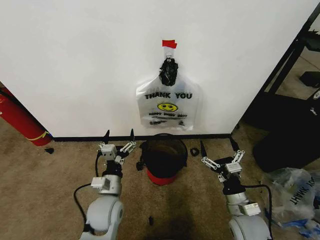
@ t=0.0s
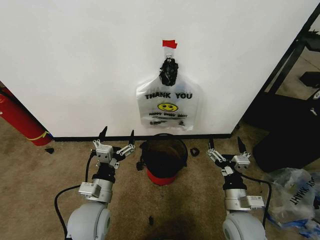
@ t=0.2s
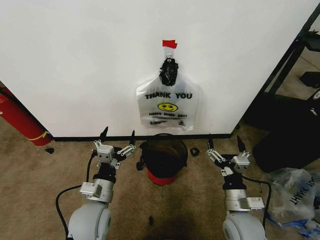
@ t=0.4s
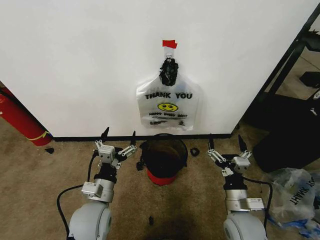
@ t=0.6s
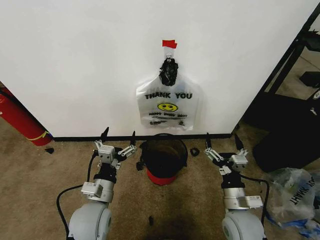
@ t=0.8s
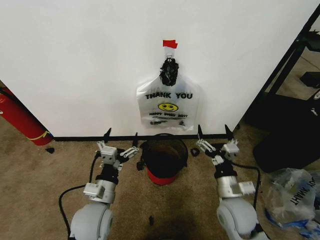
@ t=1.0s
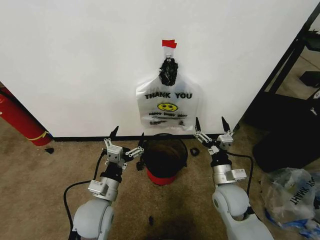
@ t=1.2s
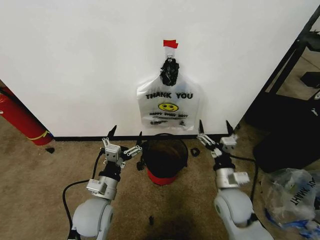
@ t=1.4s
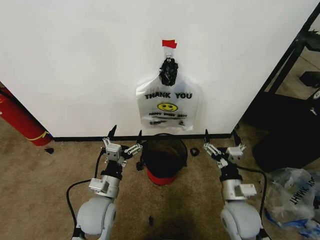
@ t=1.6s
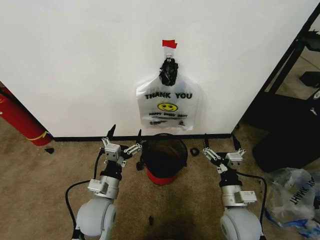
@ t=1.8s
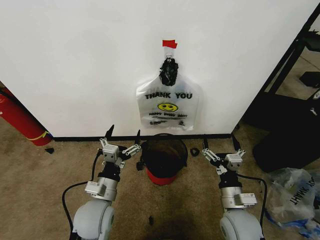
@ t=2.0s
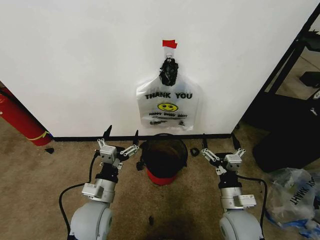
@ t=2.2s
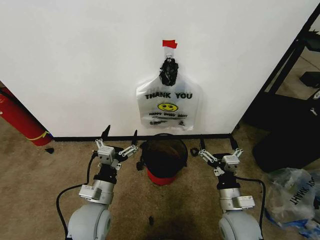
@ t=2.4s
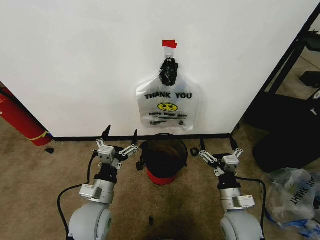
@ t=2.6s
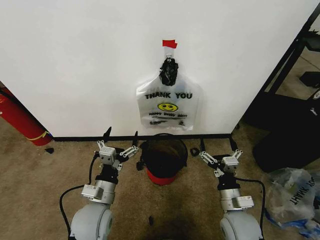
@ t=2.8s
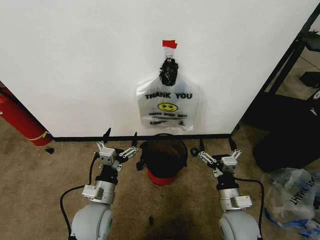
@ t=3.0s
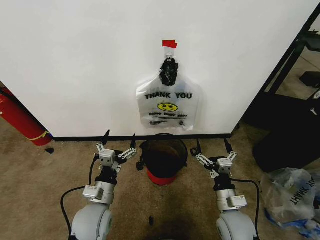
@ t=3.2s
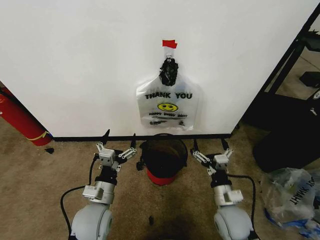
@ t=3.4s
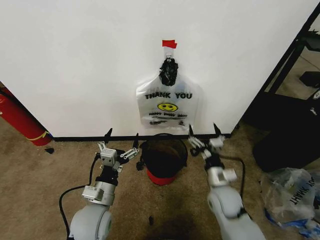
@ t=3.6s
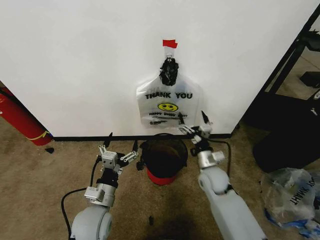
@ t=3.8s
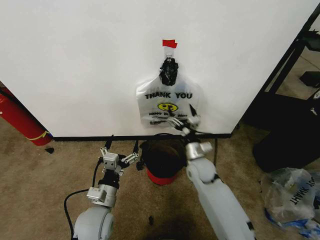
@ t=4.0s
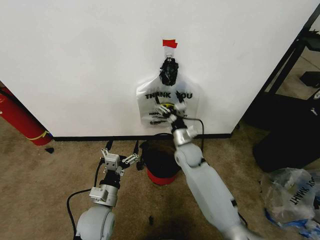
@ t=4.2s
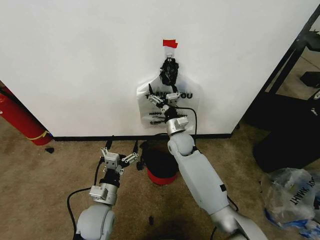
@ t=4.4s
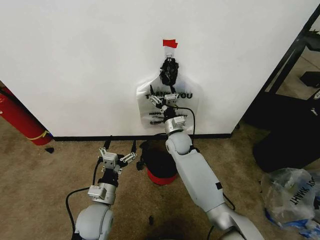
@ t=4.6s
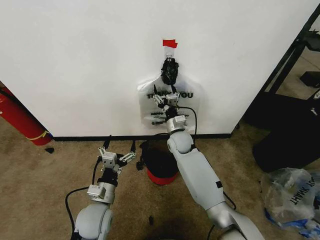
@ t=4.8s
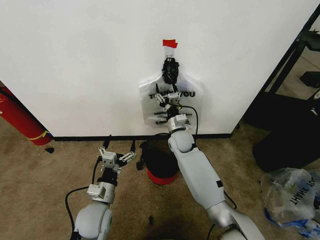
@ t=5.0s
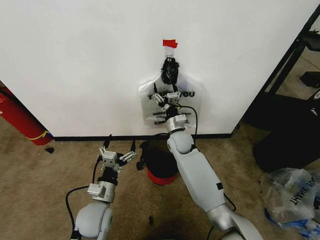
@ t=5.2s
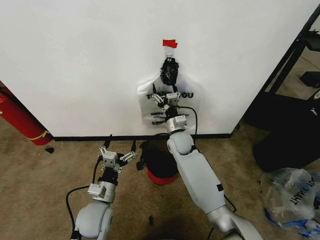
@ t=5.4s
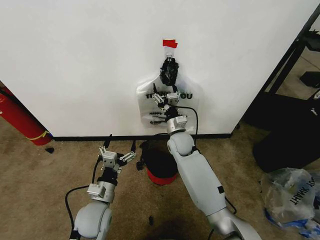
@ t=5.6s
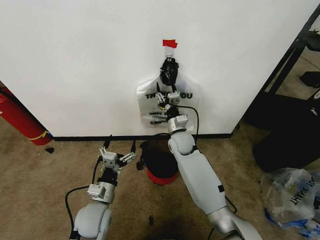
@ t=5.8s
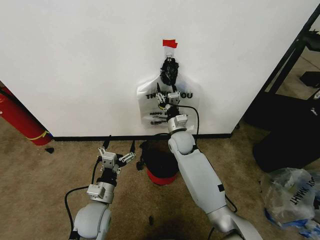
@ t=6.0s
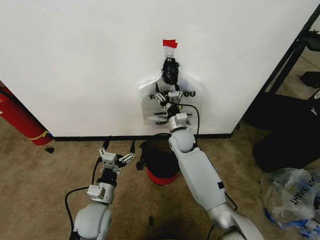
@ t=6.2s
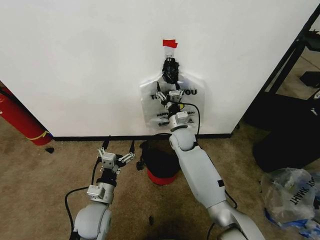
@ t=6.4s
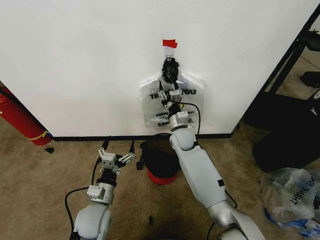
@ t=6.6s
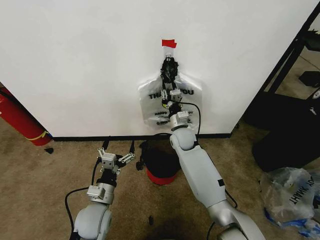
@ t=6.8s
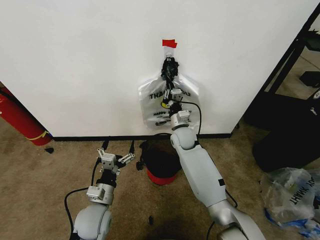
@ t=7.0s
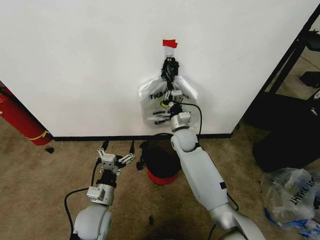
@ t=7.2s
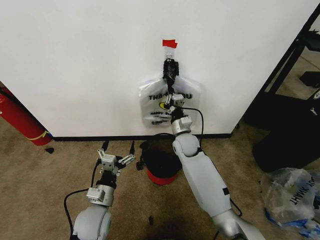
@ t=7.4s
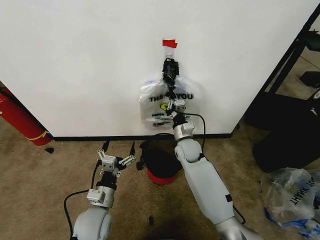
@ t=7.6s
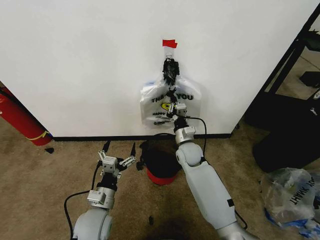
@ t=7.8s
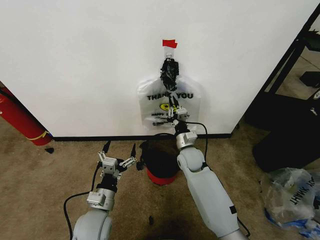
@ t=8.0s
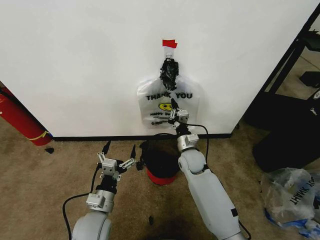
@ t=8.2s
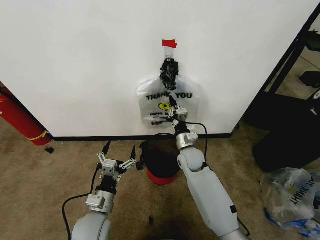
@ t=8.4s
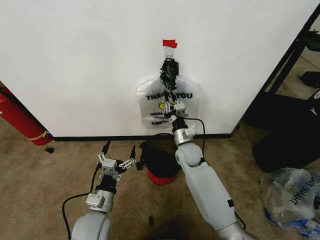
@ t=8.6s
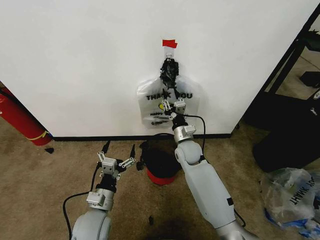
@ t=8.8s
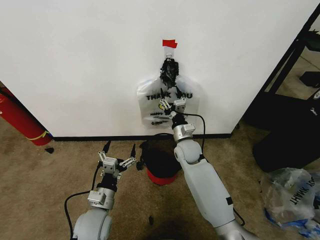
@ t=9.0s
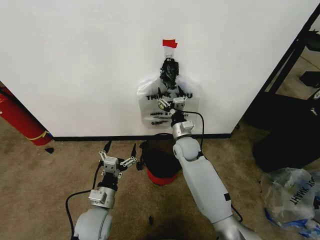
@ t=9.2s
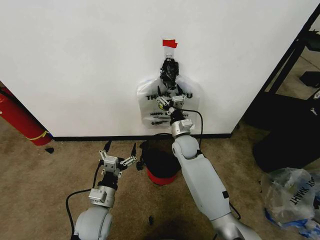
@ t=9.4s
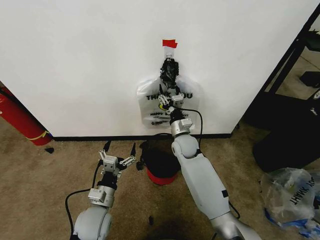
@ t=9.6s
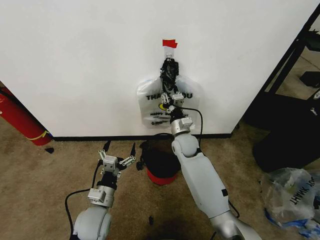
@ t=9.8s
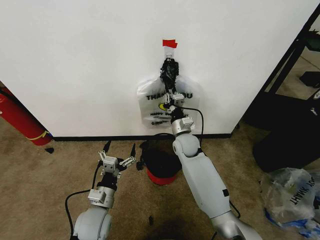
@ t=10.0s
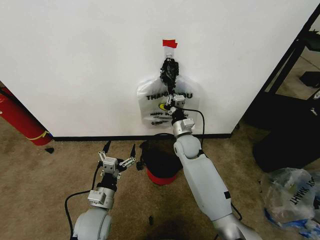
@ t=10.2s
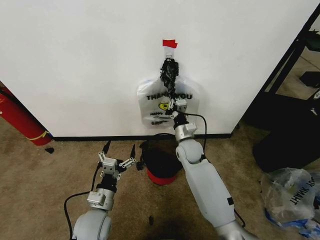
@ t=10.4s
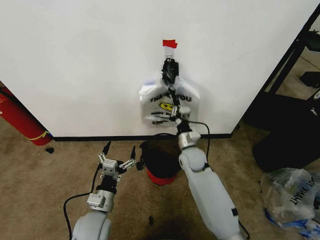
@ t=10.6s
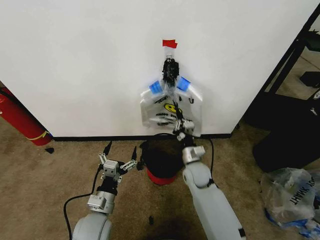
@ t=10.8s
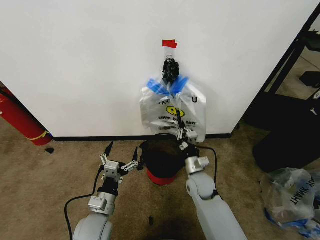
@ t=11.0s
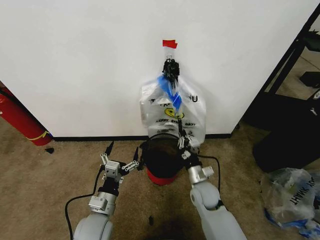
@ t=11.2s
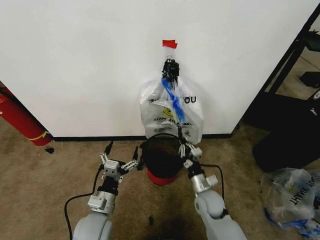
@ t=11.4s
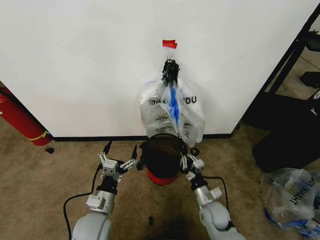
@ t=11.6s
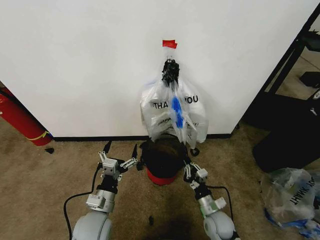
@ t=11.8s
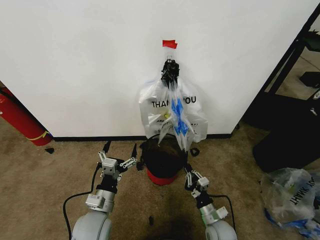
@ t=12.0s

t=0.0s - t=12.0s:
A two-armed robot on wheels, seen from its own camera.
Task of the whole recording: Pick up the garbage bag from the wall and place it over the trash bin.
t=1.6s - t=3.0s: The grippers make only small movements.
t=3.0s - t=4.4s: The right gripper goes roughly 30 cm forward and to the left.
t=4.4s - t=6.0s: The right gripper closes.
t=6.0s - t=7.6s: The right gripper closes.
t=7.6s - t=9.0s: The right gripper opens up.
t=9.0s - t=10.4s: The right gripper closes.
t=10.4s - t=12.0s: The right gripper is displaced backward, downward and to the right by about 30 cm.

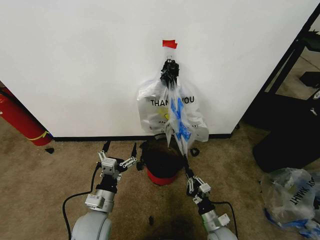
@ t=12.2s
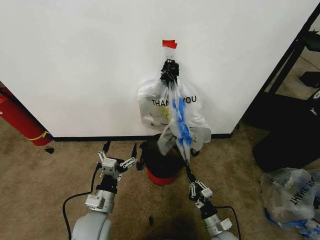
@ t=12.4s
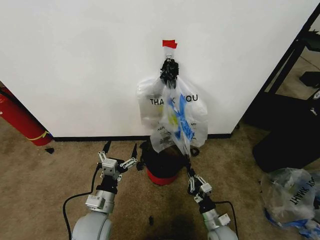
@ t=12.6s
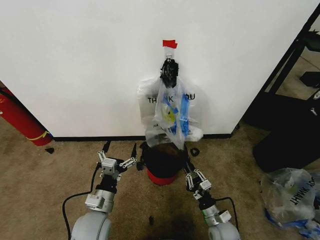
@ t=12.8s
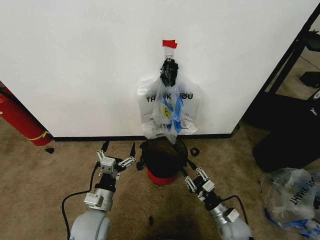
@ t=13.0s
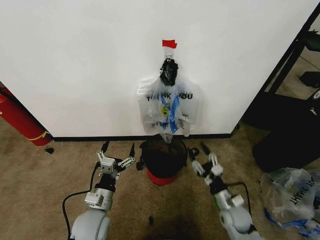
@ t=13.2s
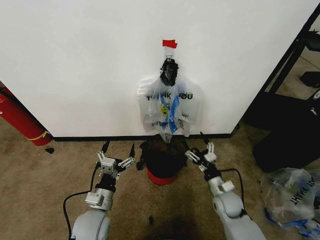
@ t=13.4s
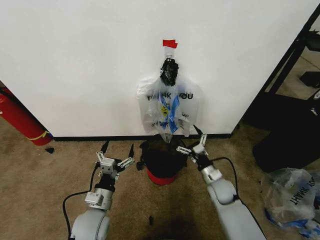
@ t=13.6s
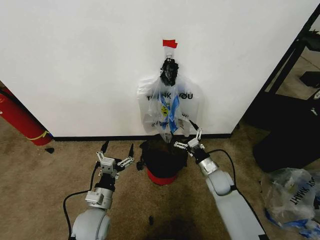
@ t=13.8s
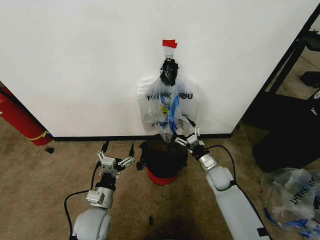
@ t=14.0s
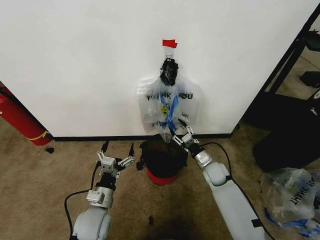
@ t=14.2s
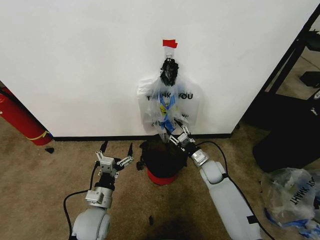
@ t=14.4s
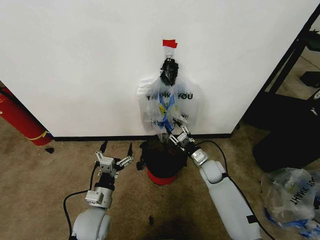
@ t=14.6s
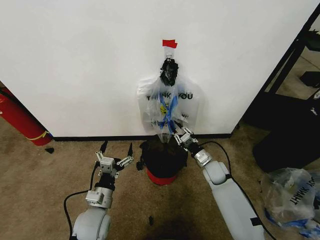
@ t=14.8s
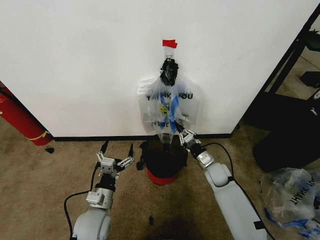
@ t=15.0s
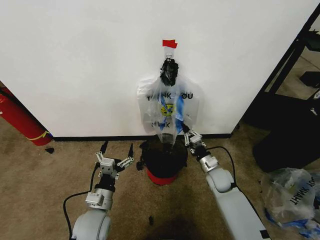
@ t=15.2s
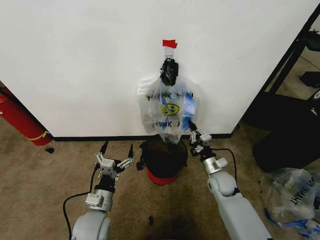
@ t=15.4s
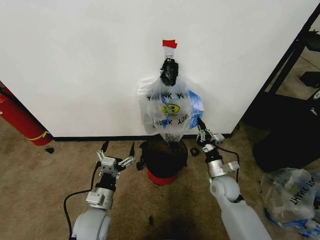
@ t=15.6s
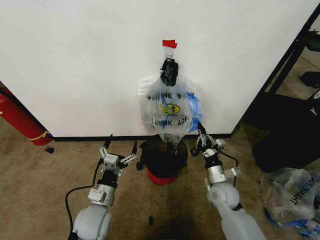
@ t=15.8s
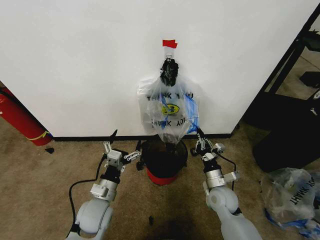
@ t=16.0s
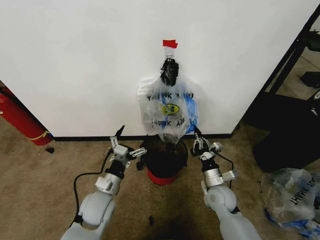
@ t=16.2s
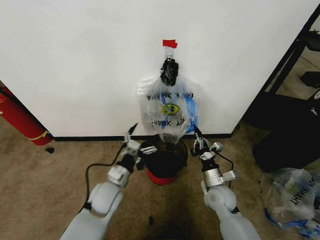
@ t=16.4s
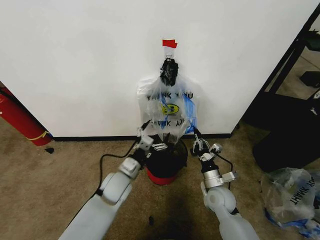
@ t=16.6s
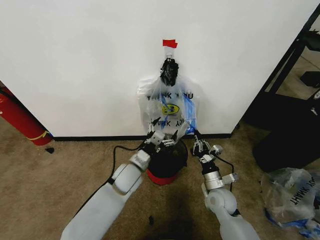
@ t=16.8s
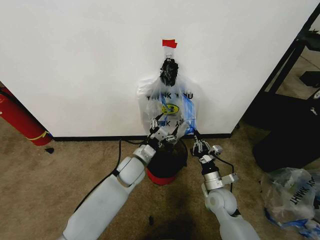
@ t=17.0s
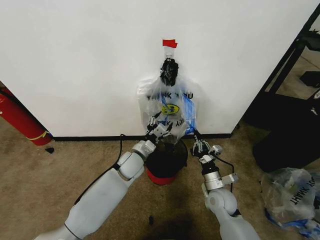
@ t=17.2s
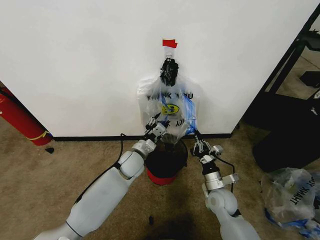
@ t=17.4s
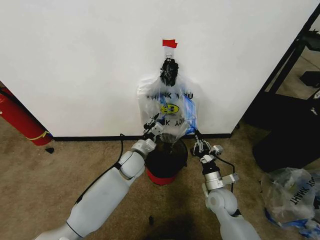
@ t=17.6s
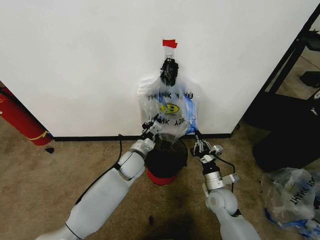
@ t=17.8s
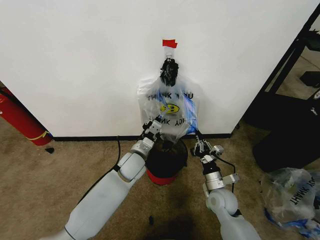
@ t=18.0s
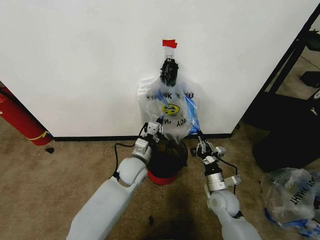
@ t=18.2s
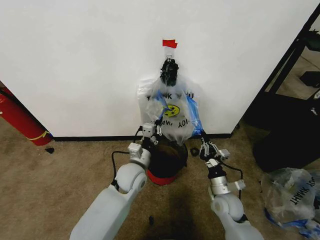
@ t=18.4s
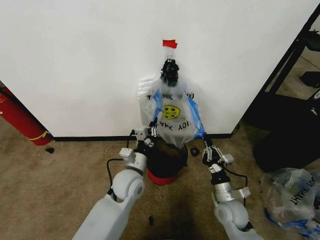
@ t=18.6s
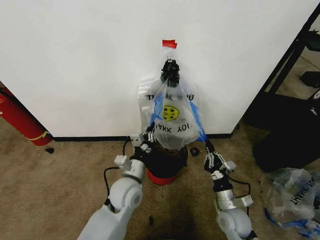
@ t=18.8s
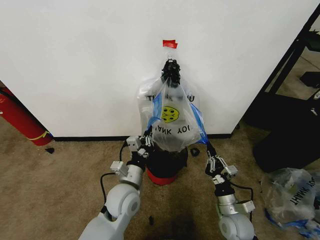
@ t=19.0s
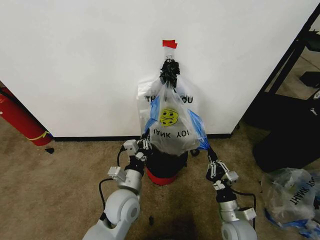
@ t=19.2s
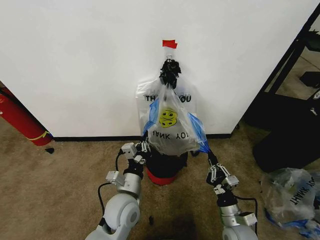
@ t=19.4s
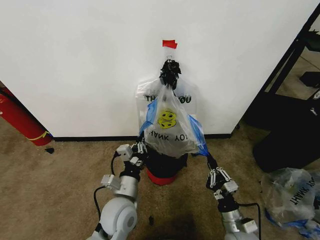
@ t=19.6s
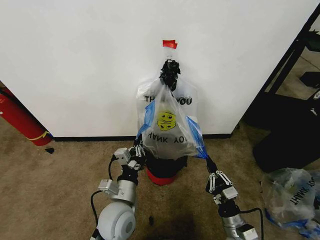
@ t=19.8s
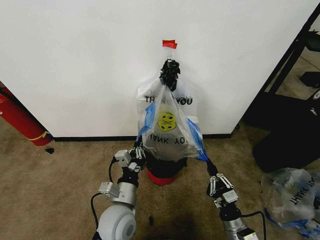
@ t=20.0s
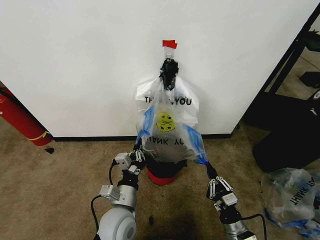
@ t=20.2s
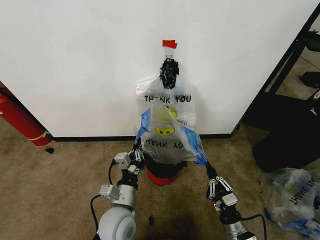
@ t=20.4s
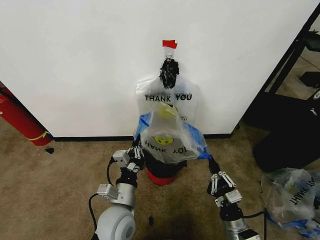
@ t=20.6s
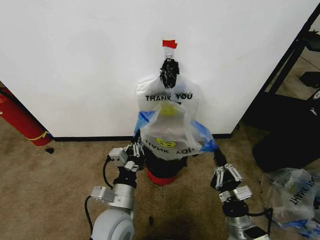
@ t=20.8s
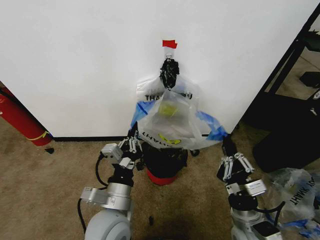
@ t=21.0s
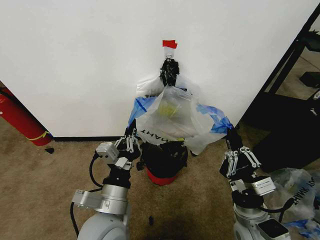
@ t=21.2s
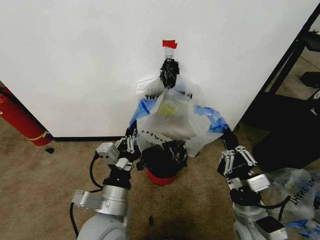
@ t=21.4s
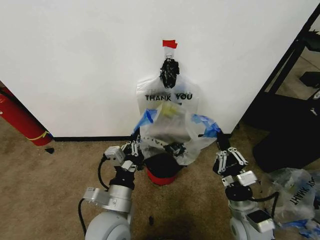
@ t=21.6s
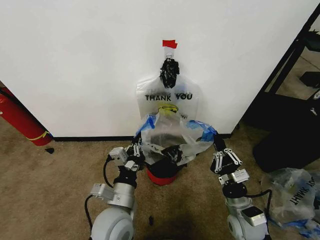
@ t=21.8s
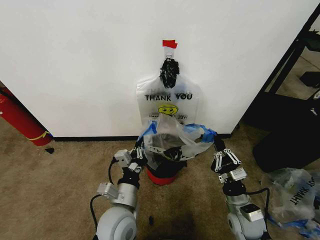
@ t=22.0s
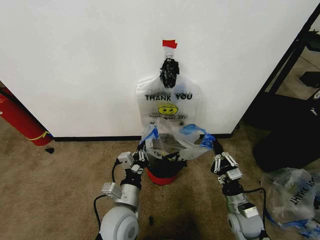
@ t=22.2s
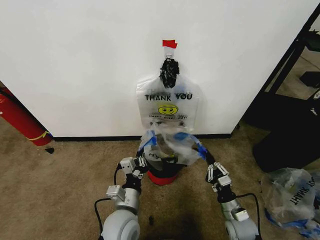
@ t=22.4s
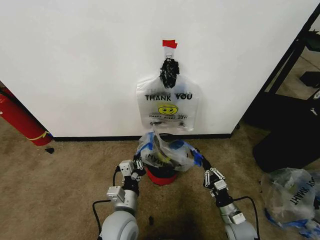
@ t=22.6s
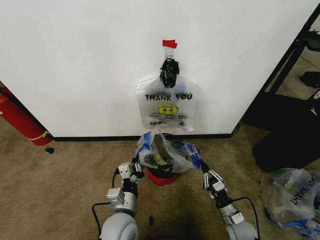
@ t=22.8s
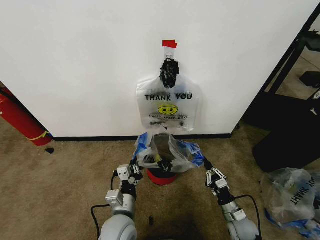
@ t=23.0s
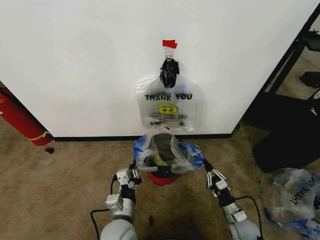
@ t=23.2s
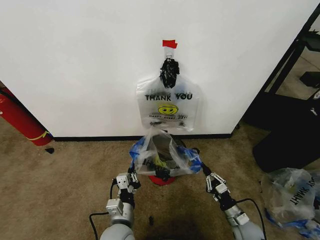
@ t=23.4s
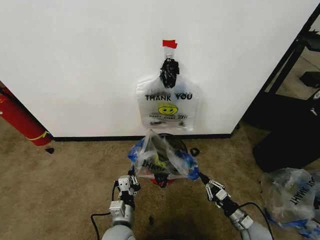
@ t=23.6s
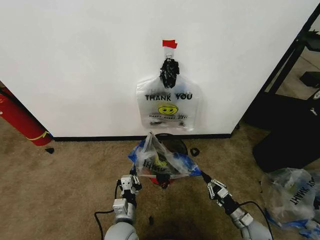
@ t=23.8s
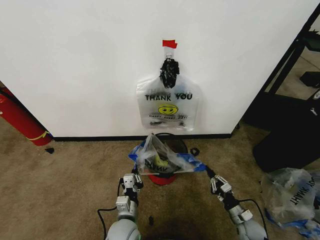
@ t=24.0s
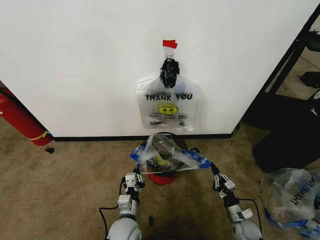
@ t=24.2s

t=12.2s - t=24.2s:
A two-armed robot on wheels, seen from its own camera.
Task of the whole recording: Pick up the garbage bag from the wall and place it over the trash bin.
t=12.2s - t=13.8s: The right gripper moves forward and upward, some 20 cm, and opens its fingers.
t=13.8s - t=15.2s: The right gripper closes.
t=15.2s - t=16.6s: The left gripper goes approximately 15 cm forward and to the right. Meanwhile the right gripper travels backward by some 10 cm.
t=16.6s - t=18.2s: The left gripper changes place by about 5 cm, and closes.
t=18.2s - t=19.8s: The two grippers go roughly 15 cm backward.
t=19.8s - t=21.2s: The right gripper goes about 15 cm upward; the left gripper moves upward and backward, approximately 10 cm.
t=21.2s - t=22.6s: The left gripper goes about 10 cm downward; the right gripper moves downward, roughly 20 cm.
t=22.6s - t=24.2s: The left gripper goes approximately 10 cm downward. The right gripper goes some 10 cm downward and to the right.
